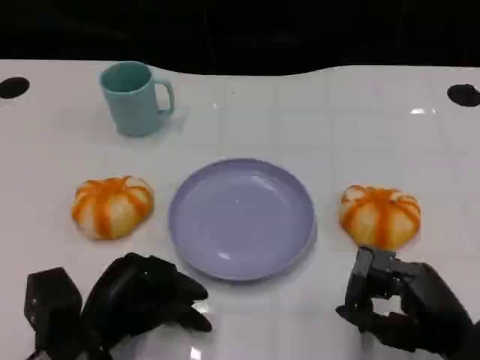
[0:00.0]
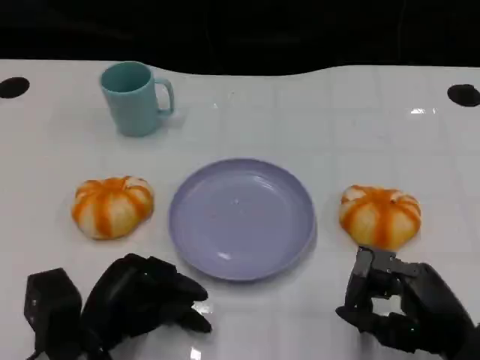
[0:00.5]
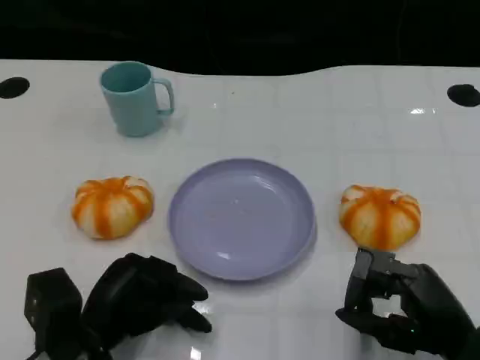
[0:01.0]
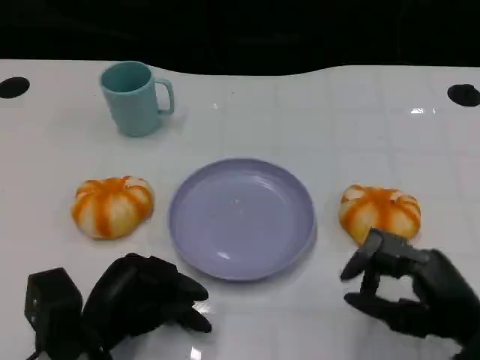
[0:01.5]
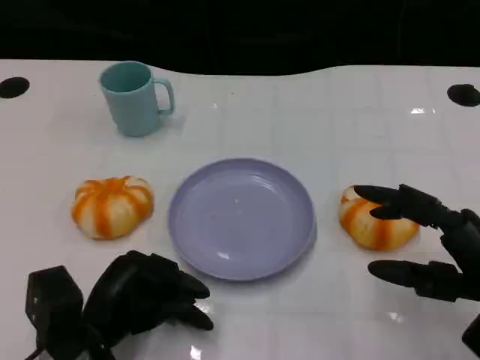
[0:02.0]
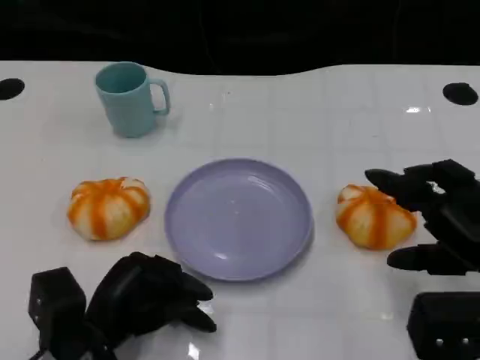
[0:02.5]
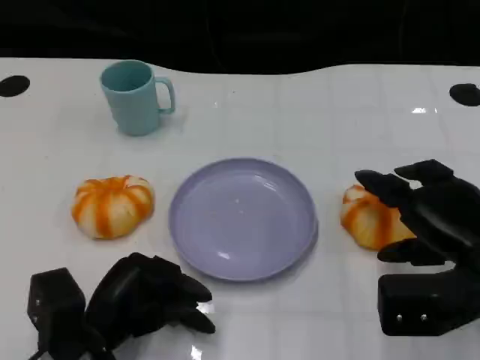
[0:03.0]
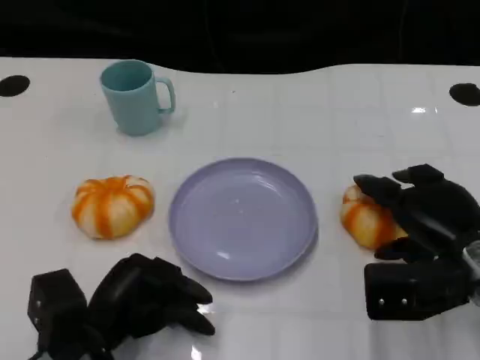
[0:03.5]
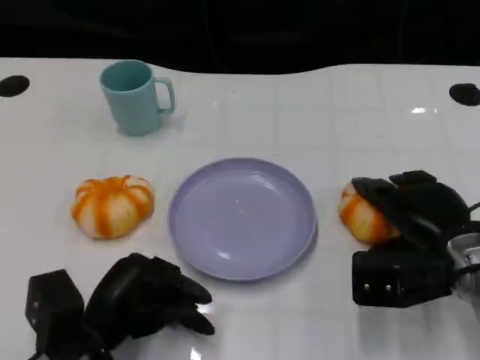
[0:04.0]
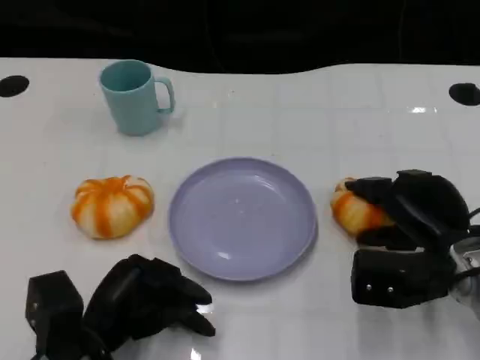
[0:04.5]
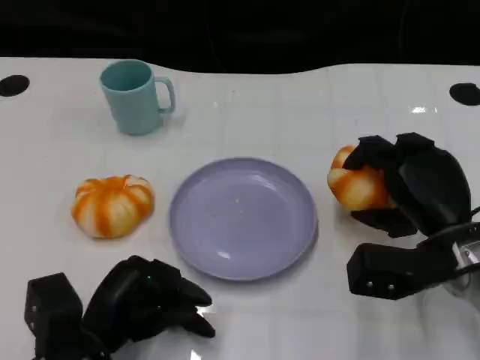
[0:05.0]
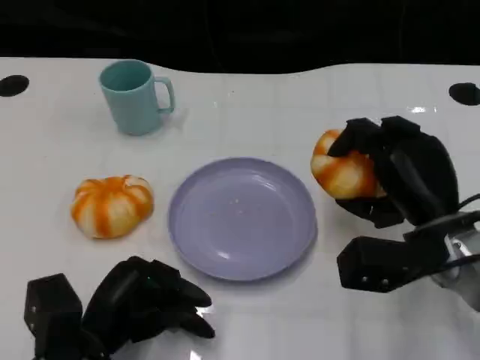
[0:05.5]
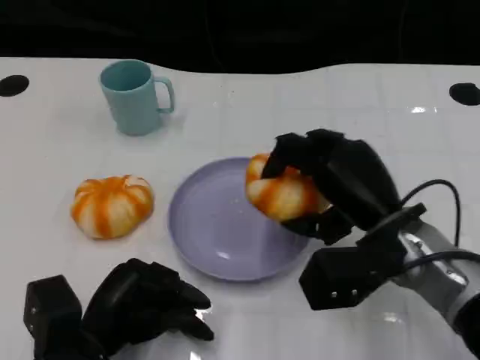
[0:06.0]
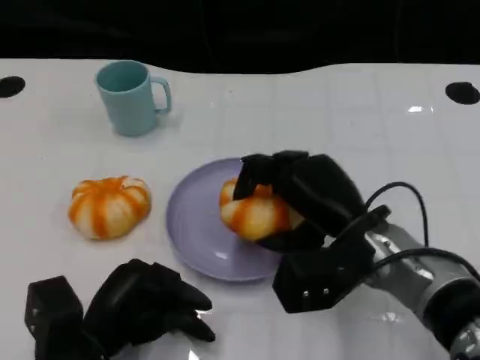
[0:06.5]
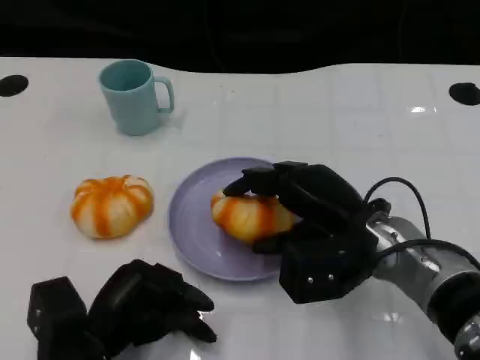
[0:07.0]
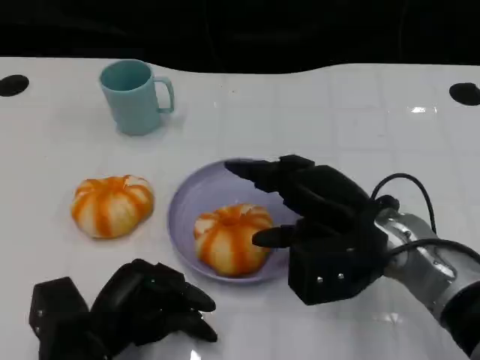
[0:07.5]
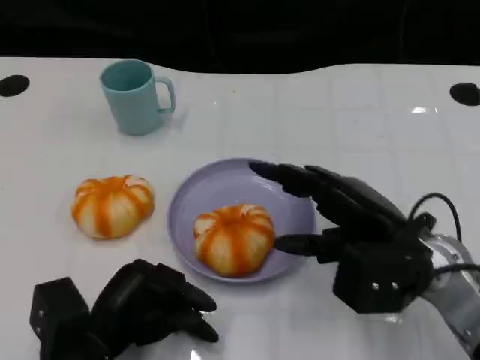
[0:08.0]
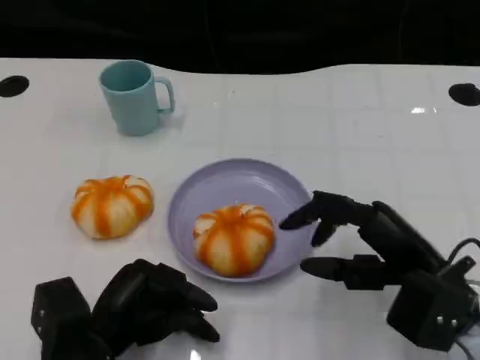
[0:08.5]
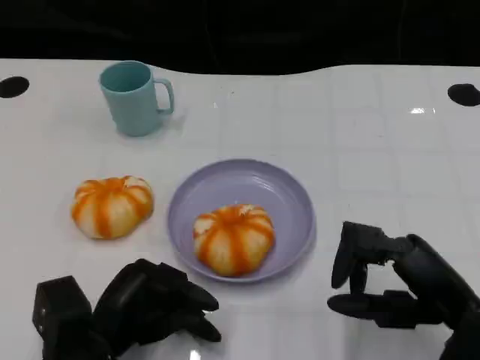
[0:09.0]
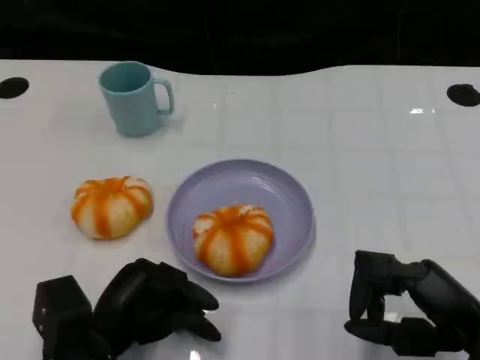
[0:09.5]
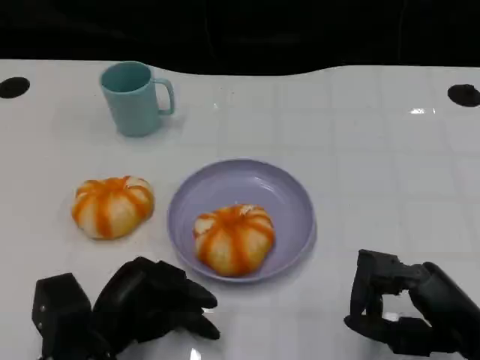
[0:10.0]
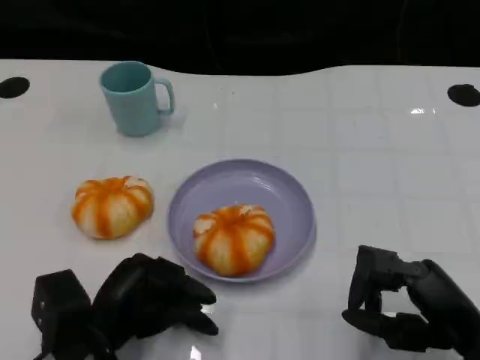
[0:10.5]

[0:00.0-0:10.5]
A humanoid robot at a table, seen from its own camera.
Task of the whole recording: Grasp the bread from the table and place it into the plate.
0:00.0 to 0:02.0: The right hand changes place by roughly 5 cm.
0:02.0 to 0:04.0: The right hand moves forward, roughly 10 cm.
0:04.0 to 0:06.5: The right hand travels to the left by about 10 cm.
0:06.5 to 0:08.5: The right hand heads to the right and backward, covering approximately 10 cm.
0:08.5 to 0:10.5: The right hand changes place by roughly 5 cm.

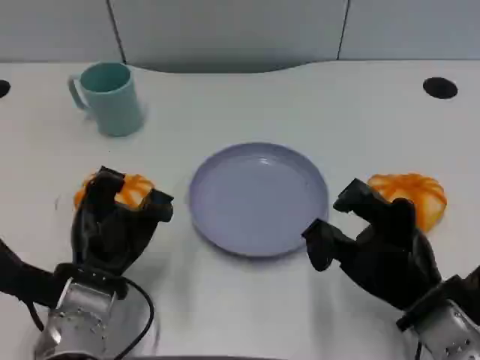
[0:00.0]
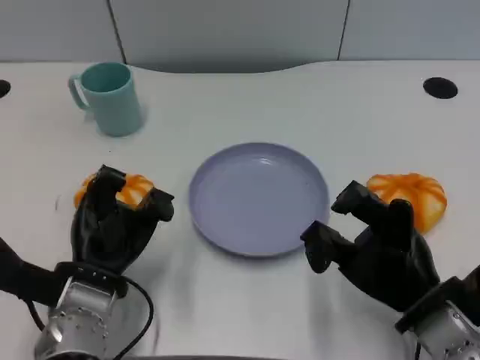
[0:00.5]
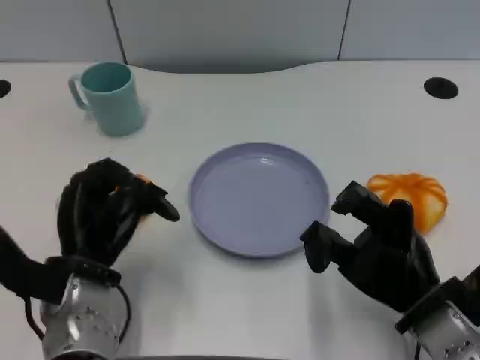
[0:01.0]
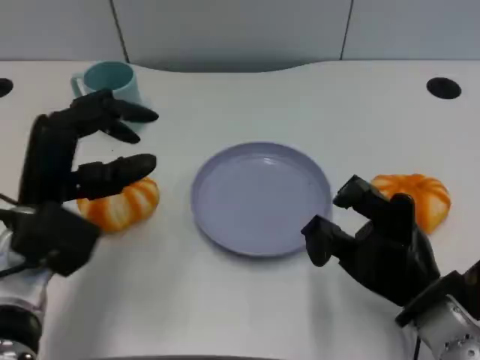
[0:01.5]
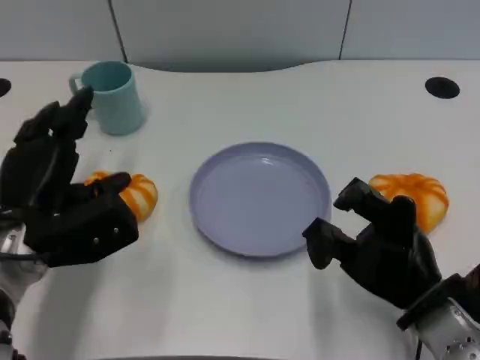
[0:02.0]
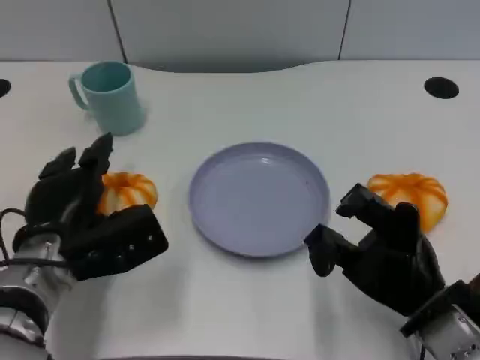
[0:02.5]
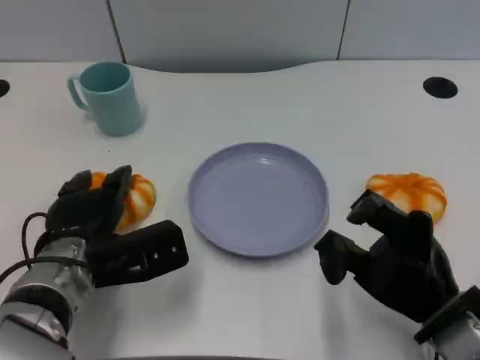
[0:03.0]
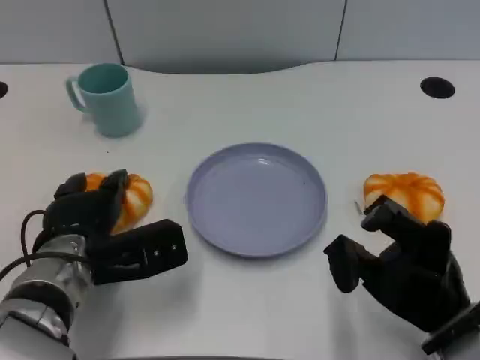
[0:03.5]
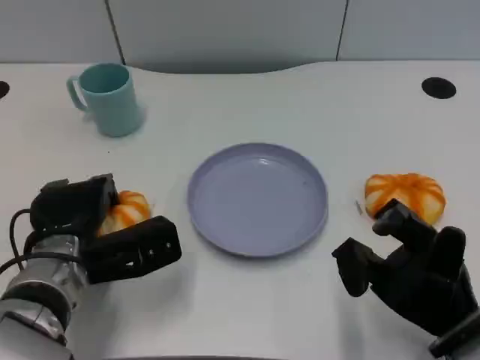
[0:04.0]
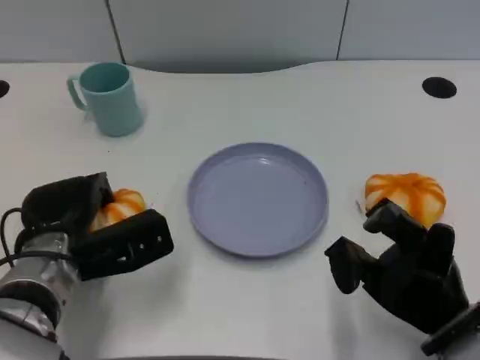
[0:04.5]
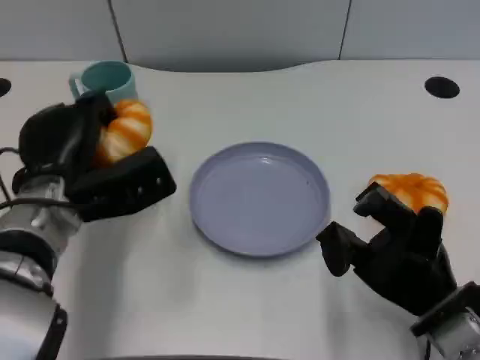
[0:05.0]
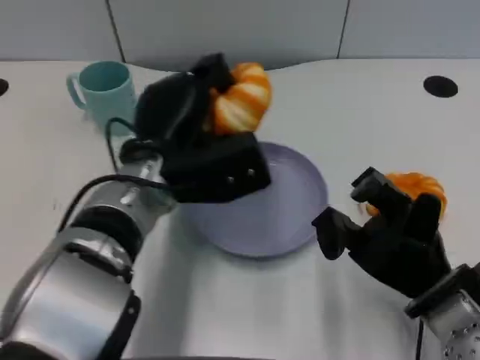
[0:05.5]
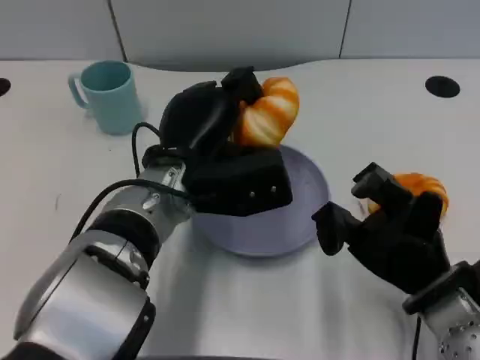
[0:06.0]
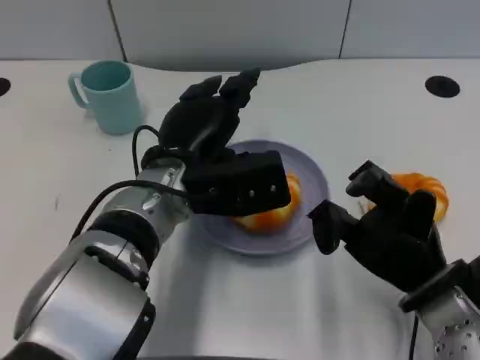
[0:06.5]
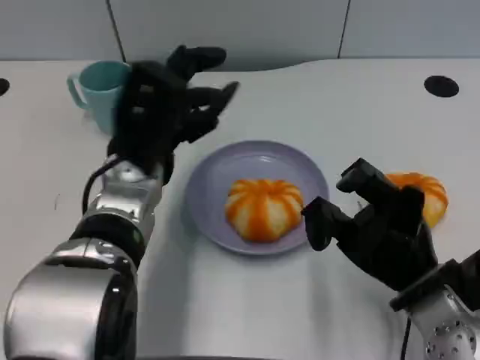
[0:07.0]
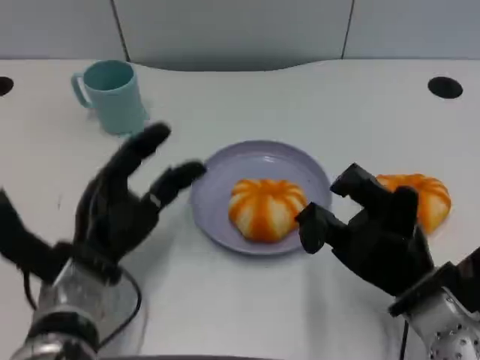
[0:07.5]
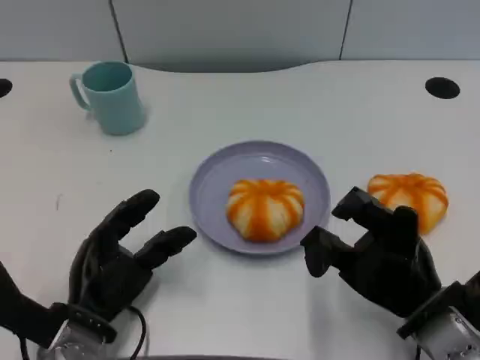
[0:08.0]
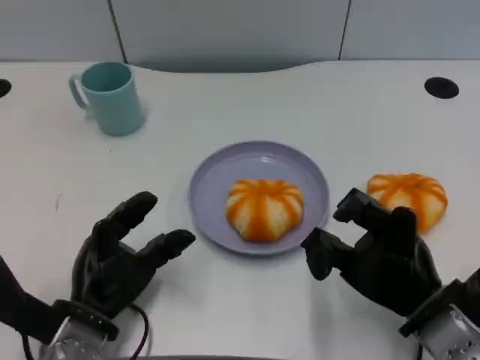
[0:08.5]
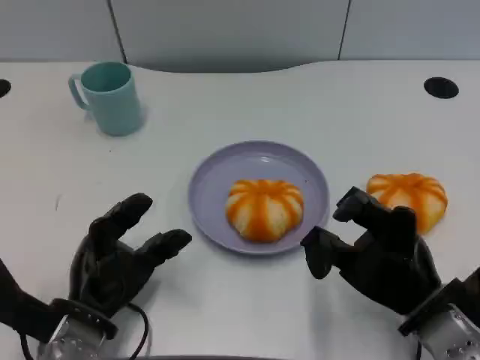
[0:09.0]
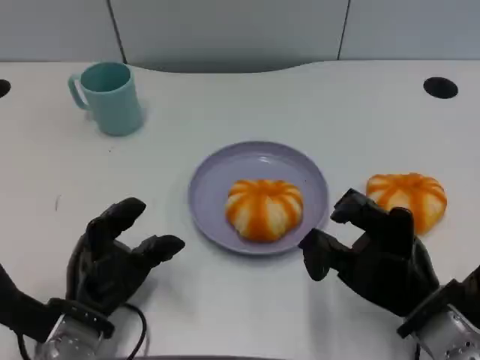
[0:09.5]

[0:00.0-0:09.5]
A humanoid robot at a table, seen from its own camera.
Task of the whole recording: Grasp the bread from the table and place it into the plate.
0:00.0 to 0:02.0: The left hand heads to the left, covering some 5 cm.
0:04.0 to 0:05.5: The left hand is displaced to the right and upward by about 15 cm.
0:05.5 to 0:07.5: The left hand heads to the left, downward and backward, covering some 15 cm.

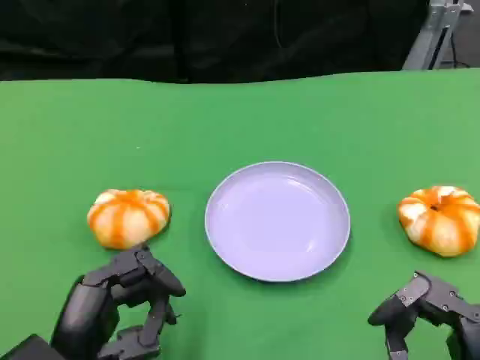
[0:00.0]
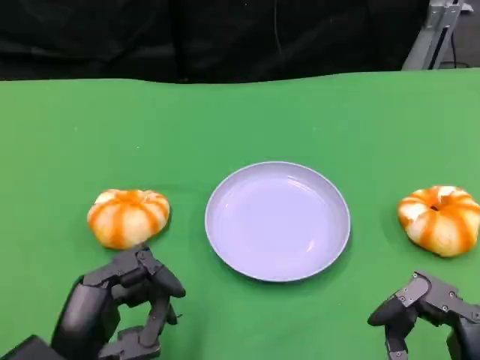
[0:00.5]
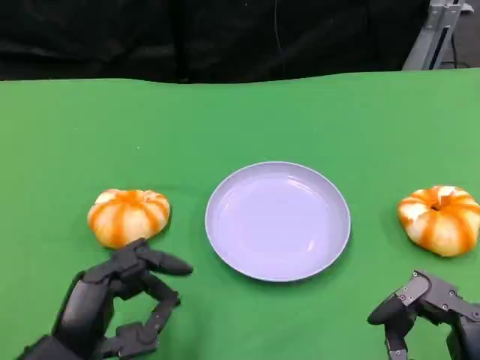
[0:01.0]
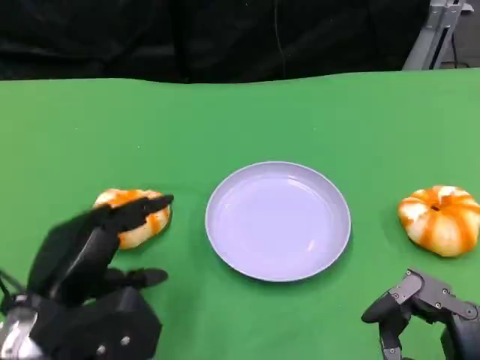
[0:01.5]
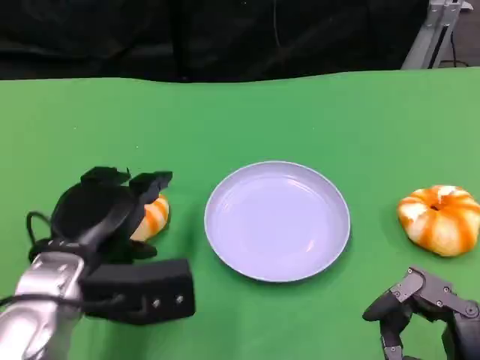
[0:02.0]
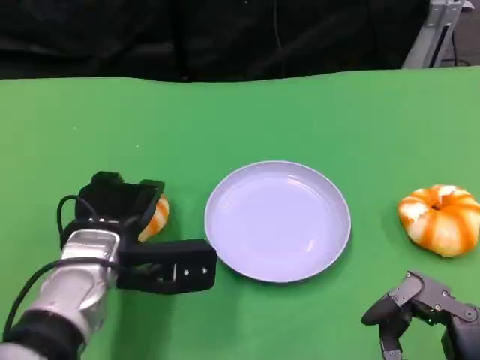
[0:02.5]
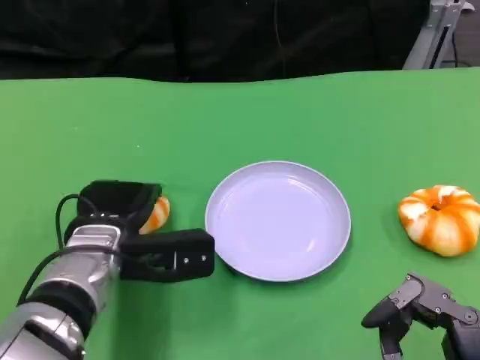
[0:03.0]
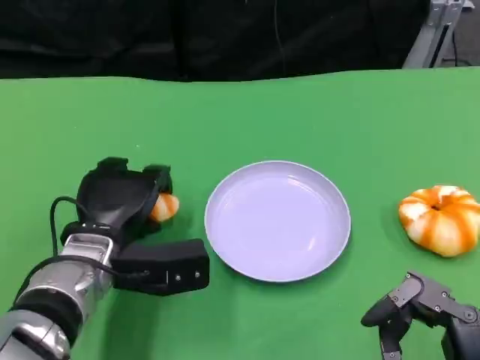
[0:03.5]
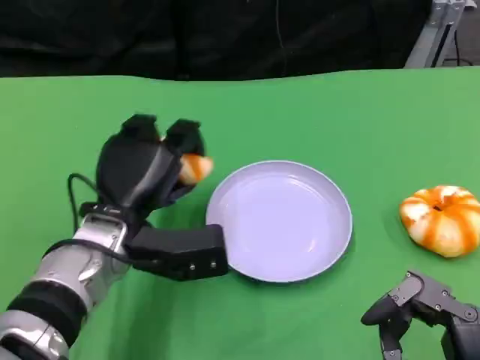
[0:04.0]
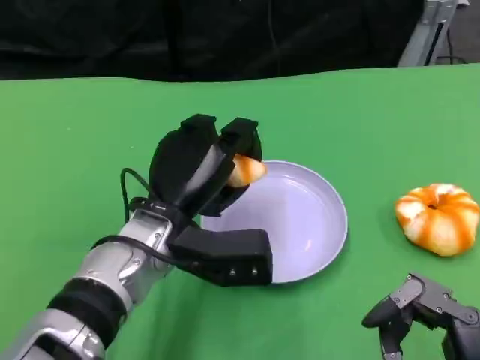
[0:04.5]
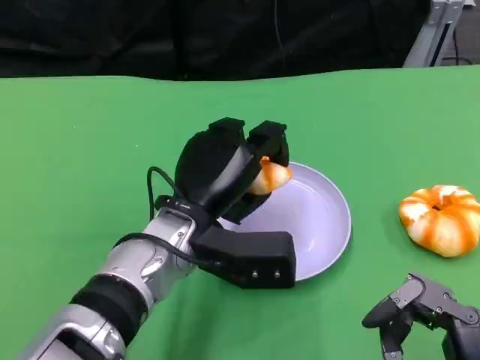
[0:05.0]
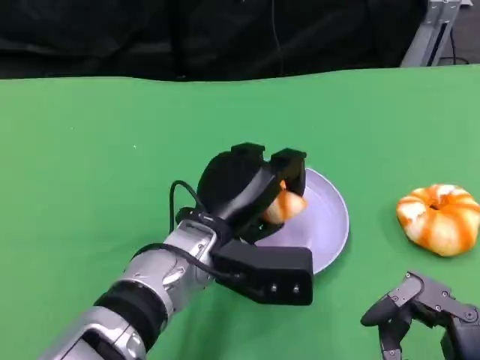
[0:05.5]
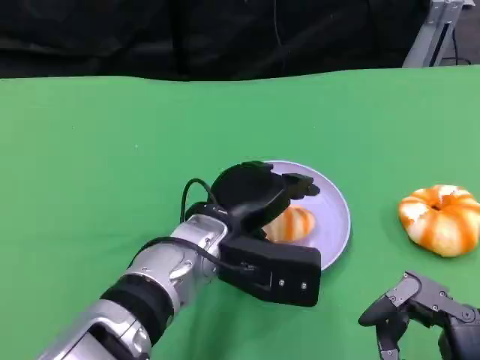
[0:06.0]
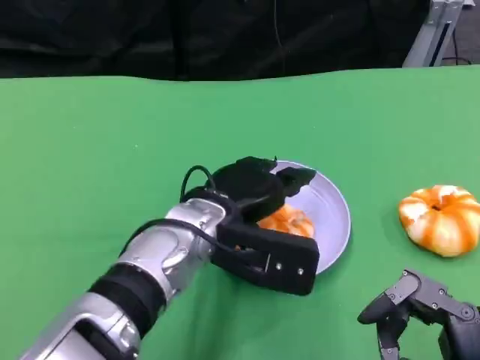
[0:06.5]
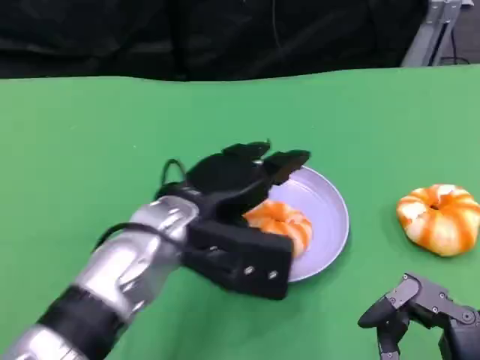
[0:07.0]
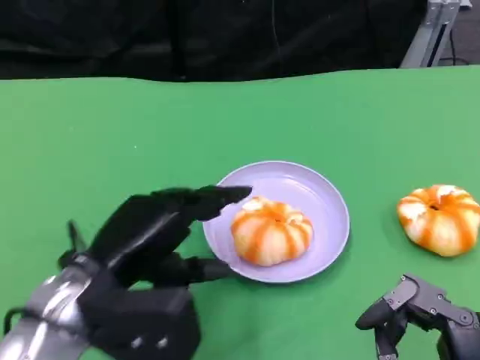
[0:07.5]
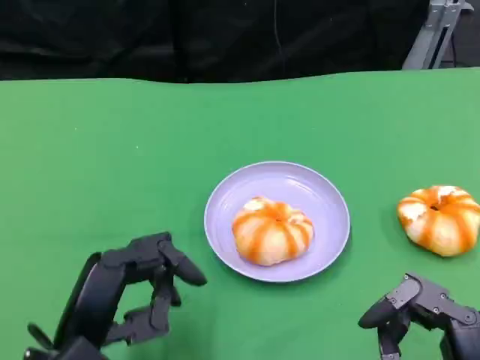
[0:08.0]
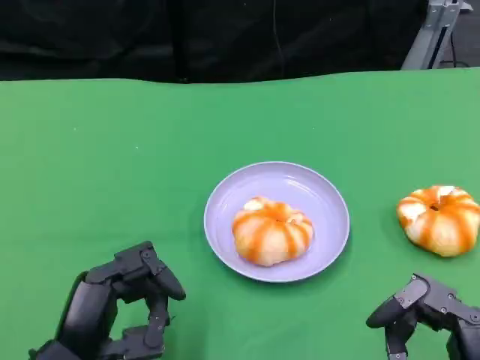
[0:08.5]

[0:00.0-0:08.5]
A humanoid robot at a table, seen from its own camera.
Task of the whole recording: Grasp the bread from the table and place it into the plate.
0:00.0 to 0:02.0: The left hand shifts roughly 10 cm forward.
0:02.0 to 0:04.0: The left hand shifts by roughly 5 cm.
0:04.0 to 0:06.5: The left hand shifts about 10 cm to the right.
0:06.5 to 0:08.5: The left hand moves backward and to the left, about 20 cm.
